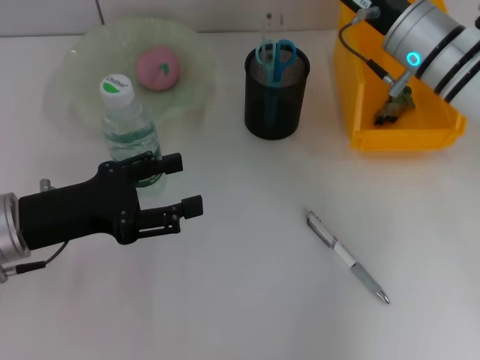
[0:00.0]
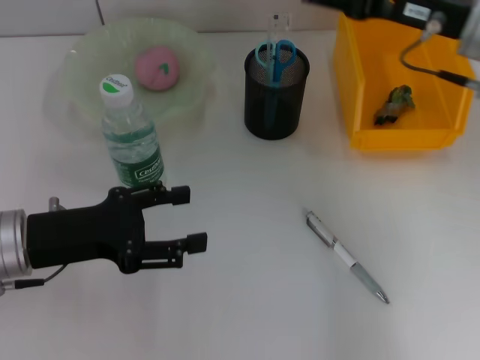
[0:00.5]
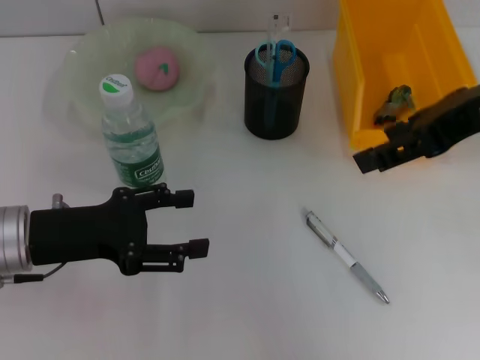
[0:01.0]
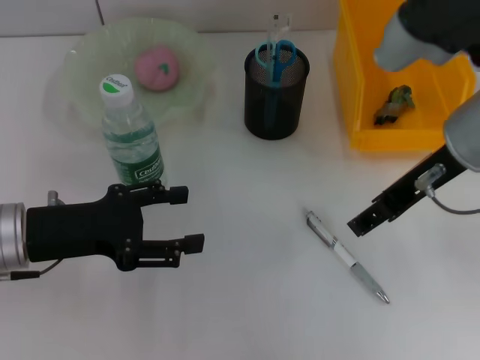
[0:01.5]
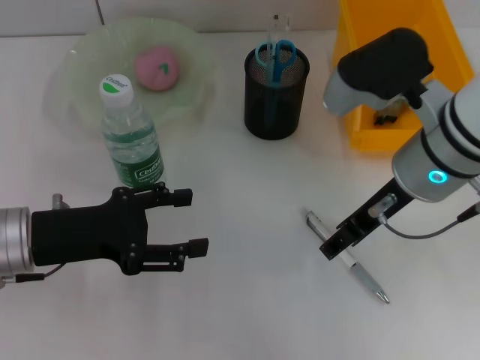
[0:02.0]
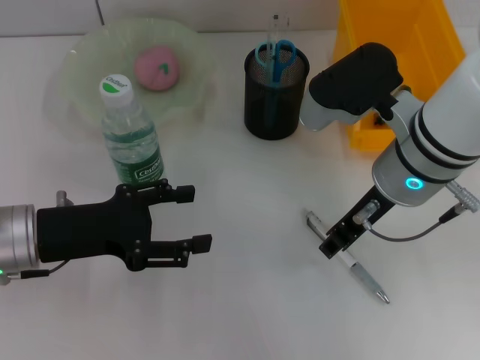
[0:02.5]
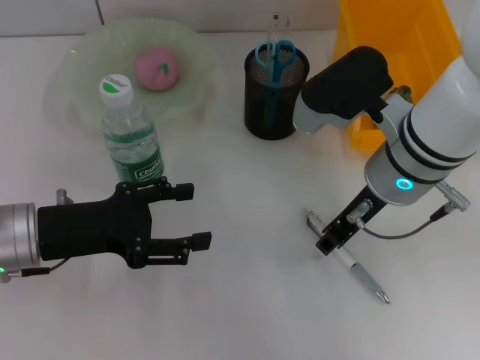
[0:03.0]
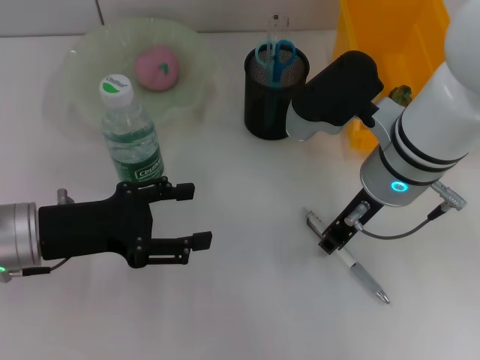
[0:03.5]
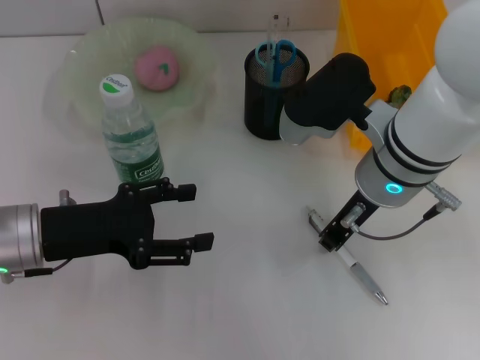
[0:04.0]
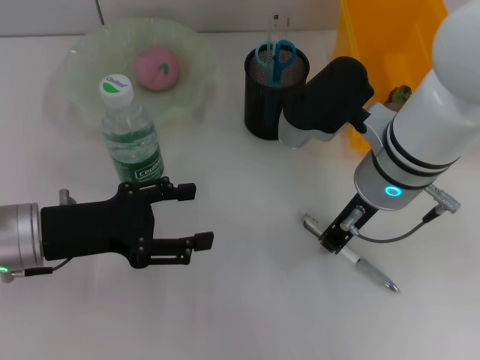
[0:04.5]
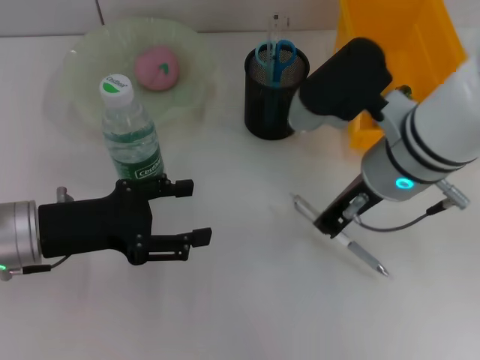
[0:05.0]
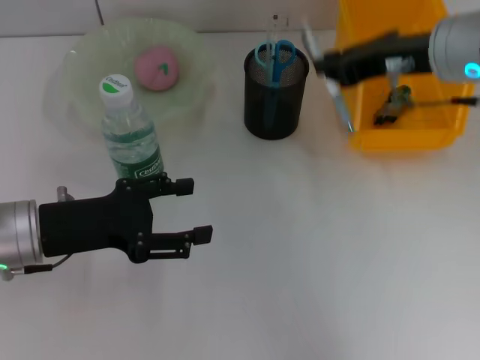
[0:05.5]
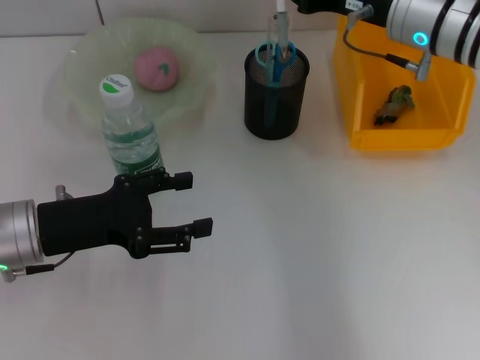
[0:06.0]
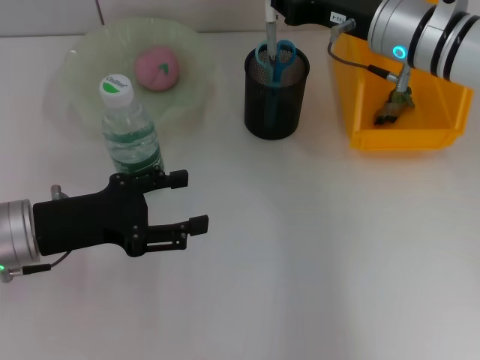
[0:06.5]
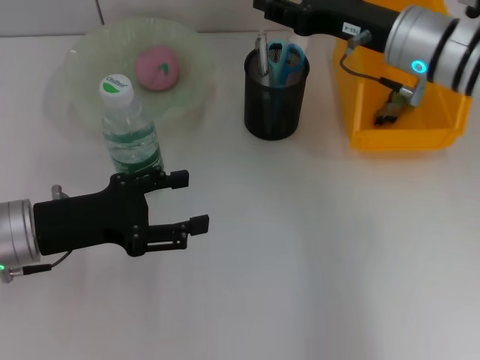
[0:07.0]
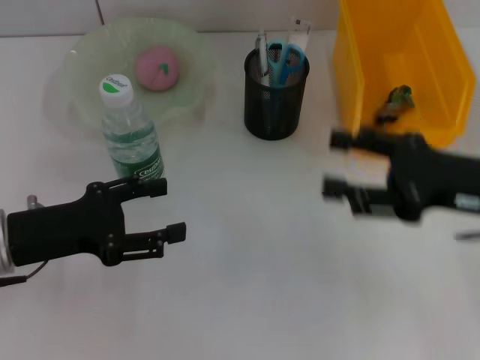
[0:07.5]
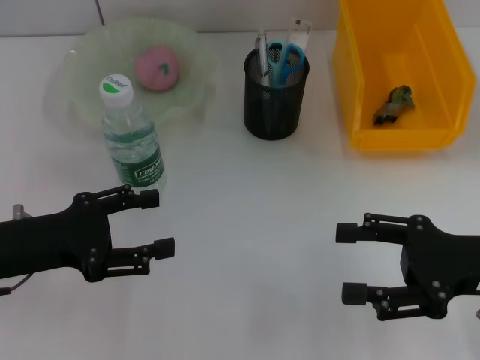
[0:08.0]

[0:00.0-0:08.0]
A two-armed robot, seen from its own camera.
Step, 0:00.0 to 0:04.5: Grab the gray spring-action pen with the right hand.
Step, 0:05.0 to 0:06.5: Place the gray spring-action pen into the pen holder with the right hand.
0:00.0 to 0:02.0: The right gripper moves backward, about 10 cm, and moves about 15 cm upward and comes back.
0:02.0 to 0:04.0: The right gripper closes its fingers.
0:04.0 to 0:06.0: The right gripper travels forward and to the right by some 10 cm.
0:06.0 to 0:08.0: The right gripper moves backward, to the right and downward, about 20 cm, and opens its fingers.
